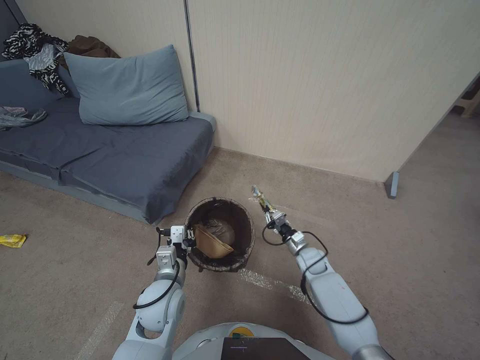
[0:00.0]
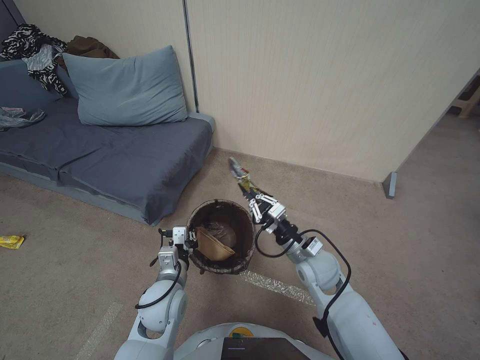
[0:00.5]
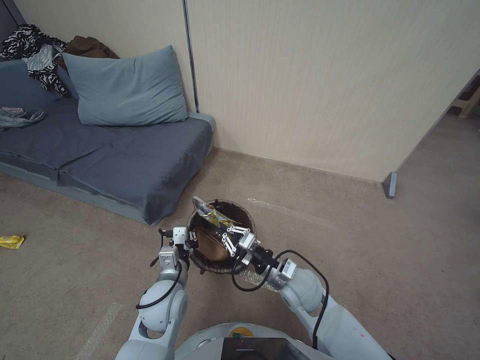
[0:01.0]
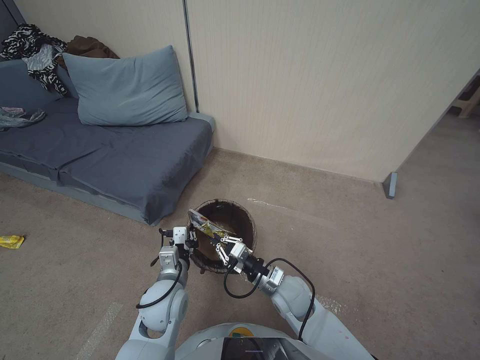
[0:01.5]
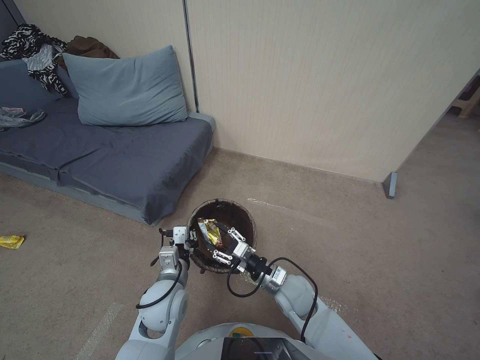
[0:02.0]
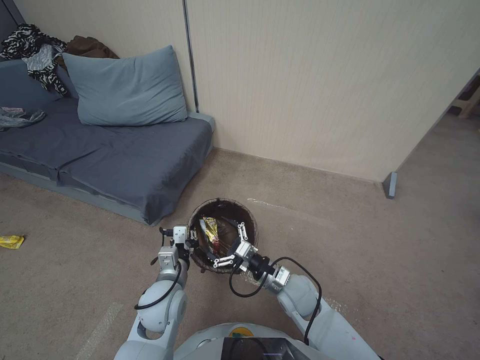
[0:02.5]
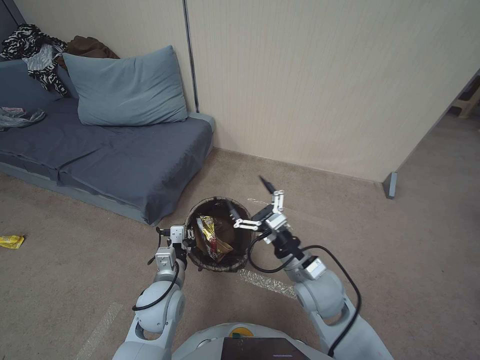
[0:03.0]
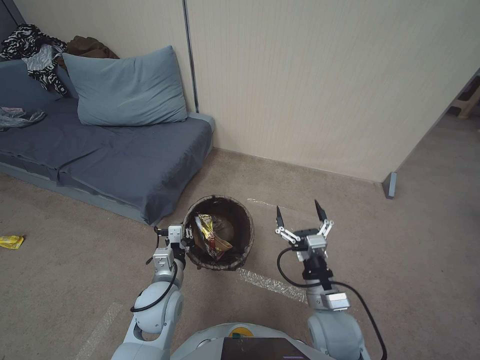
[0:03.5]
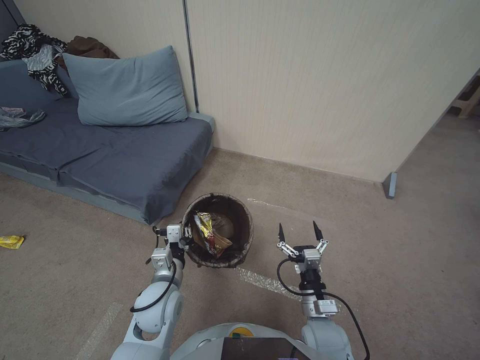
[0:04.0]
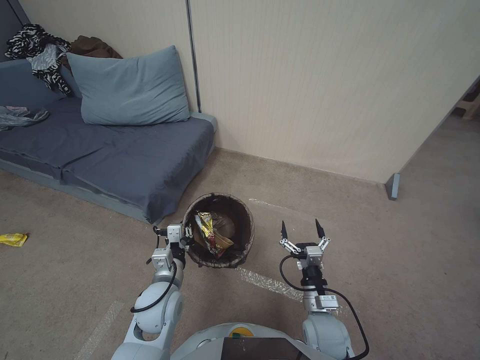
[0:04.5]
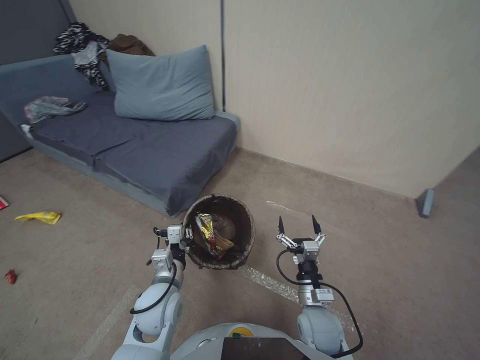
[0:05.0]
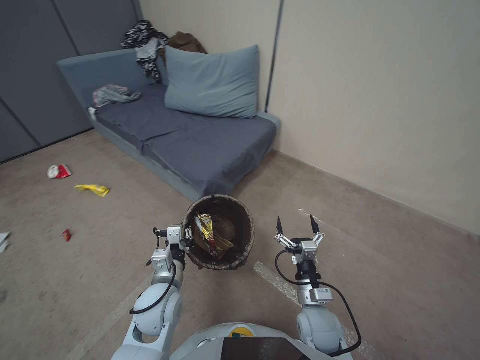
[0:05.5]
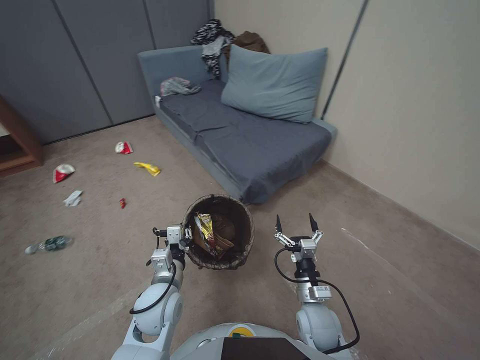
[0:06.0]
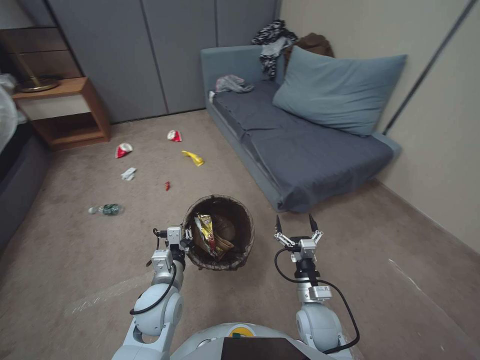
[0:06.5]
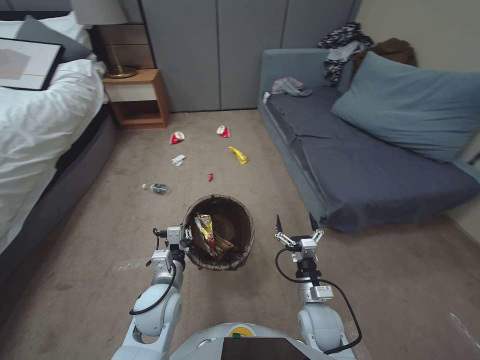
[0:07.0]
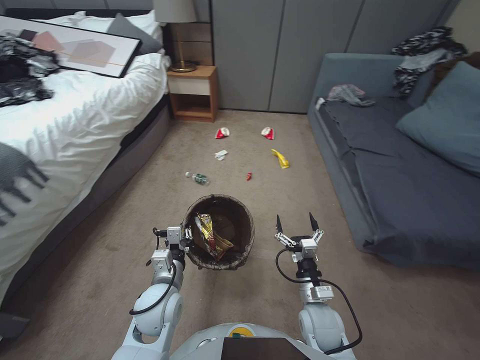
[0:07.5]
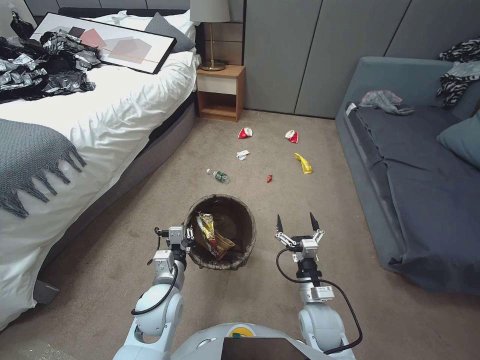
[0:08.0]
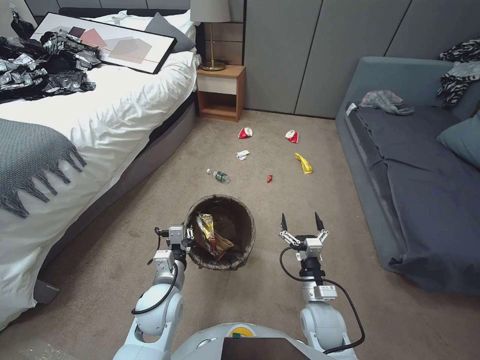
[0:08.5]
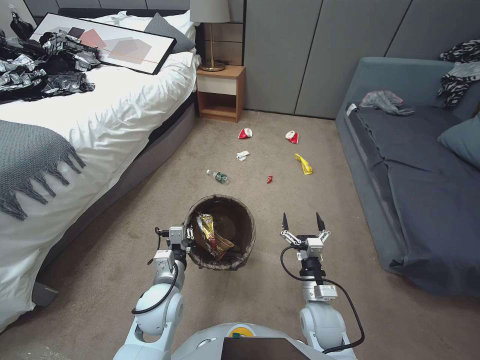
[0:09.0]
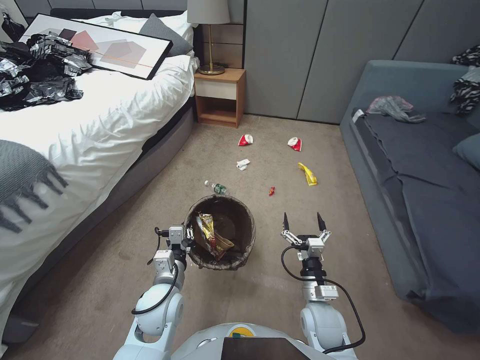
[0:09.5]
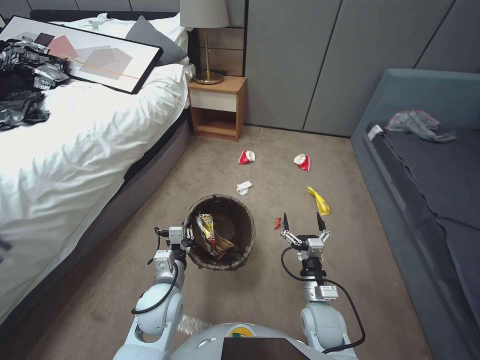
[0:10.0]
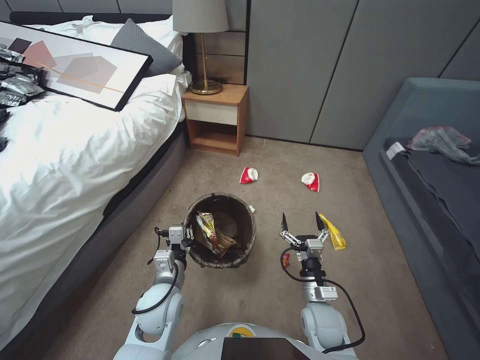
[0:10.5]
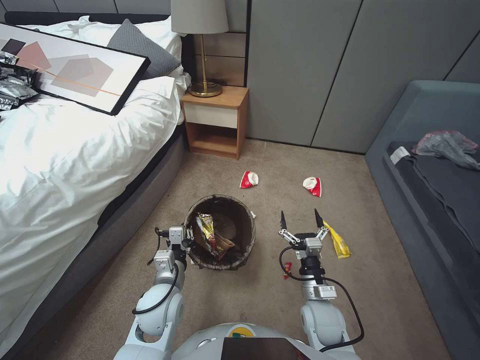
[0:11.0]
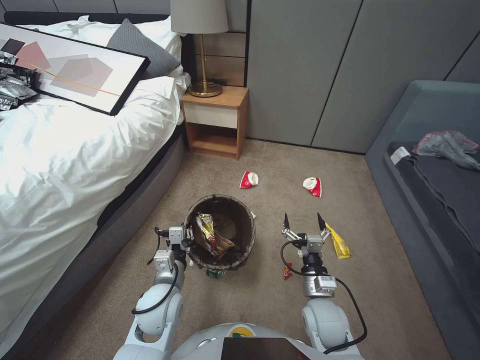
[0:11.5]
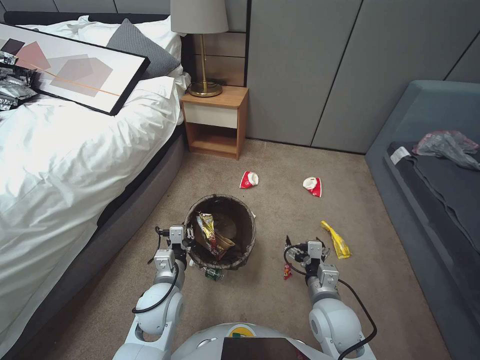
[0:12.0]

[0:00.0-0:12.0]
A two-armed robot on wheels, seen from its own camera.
Task of the whole recording: Pick up the trash bin, then pick up the garbage from the floor and place it into the trash bin.
0:00.0 to 0:02.0: The right gripper shifts roughly 25 cm upward, backward and to the left.
0:02.0 to 0:04.0: The right gripper moves backward and to the right, roughly 10 cm, and opens.
0:10.0 to 0:12.0: The right gripper is displaced upward by approximately 5 cm.

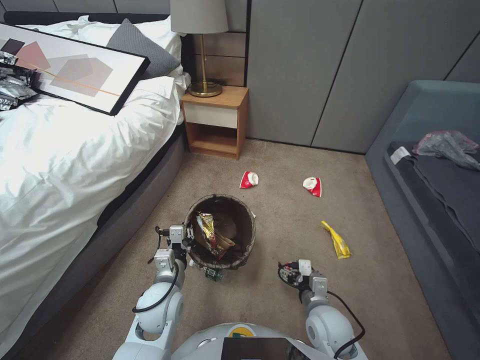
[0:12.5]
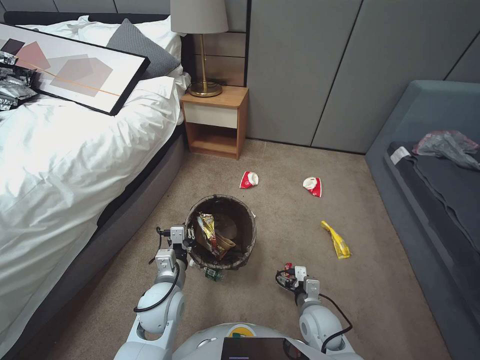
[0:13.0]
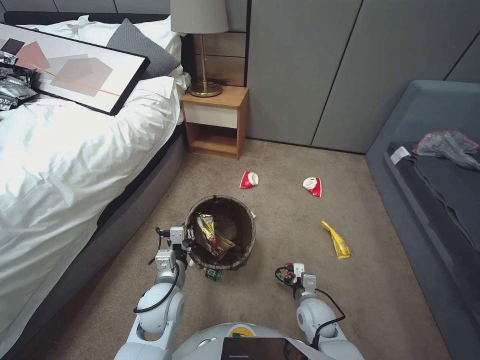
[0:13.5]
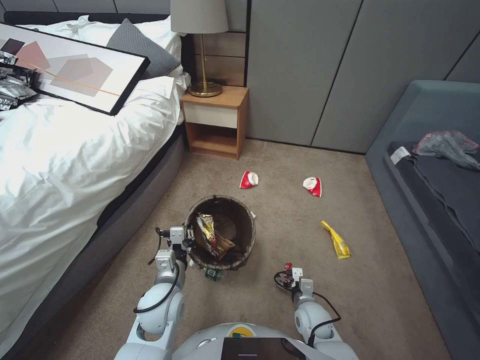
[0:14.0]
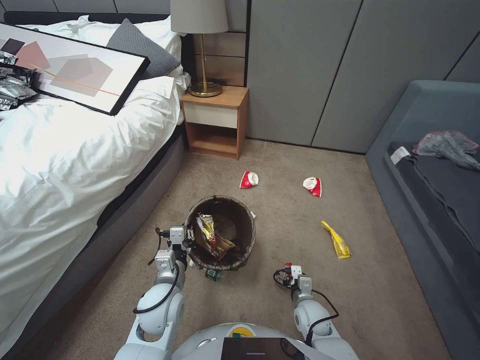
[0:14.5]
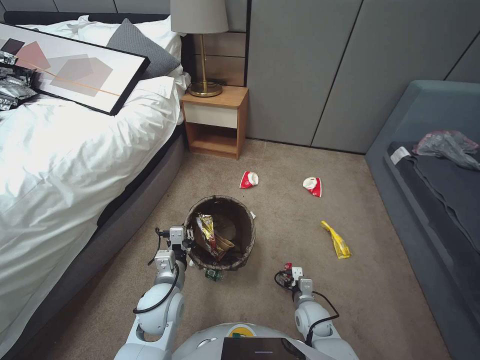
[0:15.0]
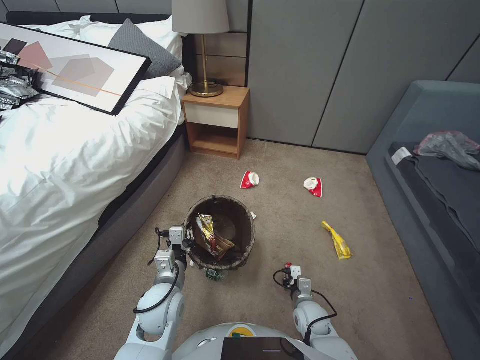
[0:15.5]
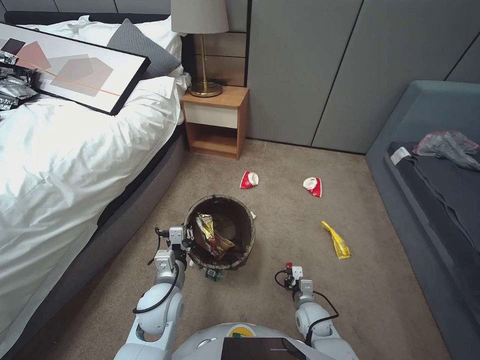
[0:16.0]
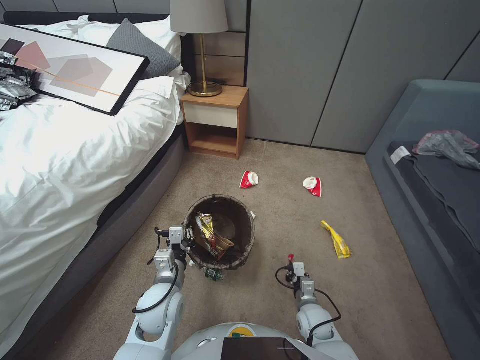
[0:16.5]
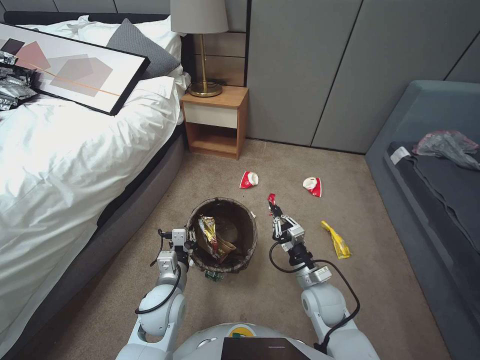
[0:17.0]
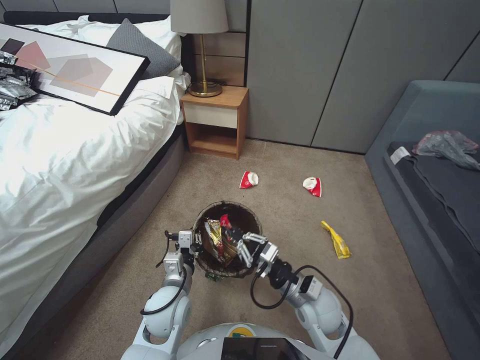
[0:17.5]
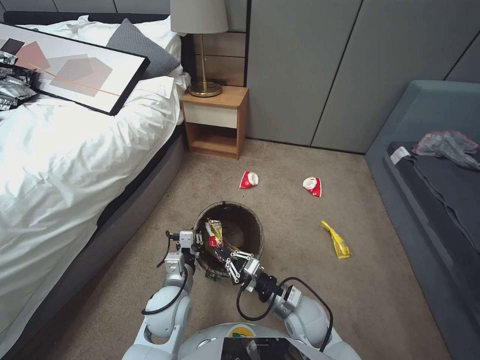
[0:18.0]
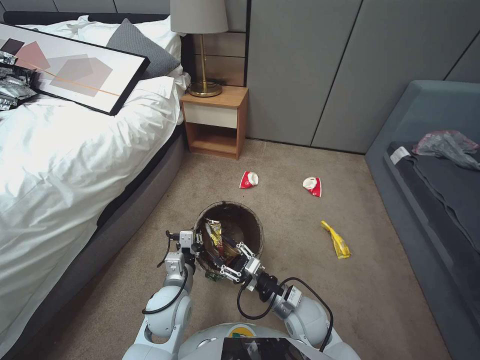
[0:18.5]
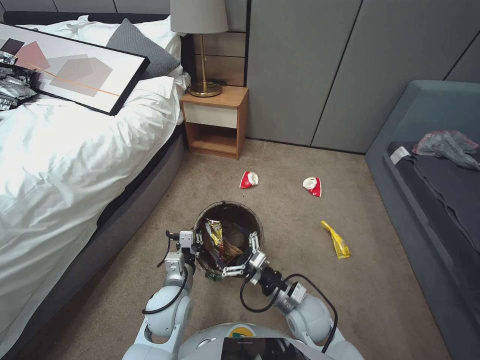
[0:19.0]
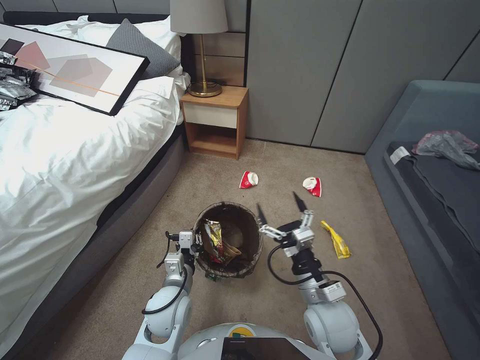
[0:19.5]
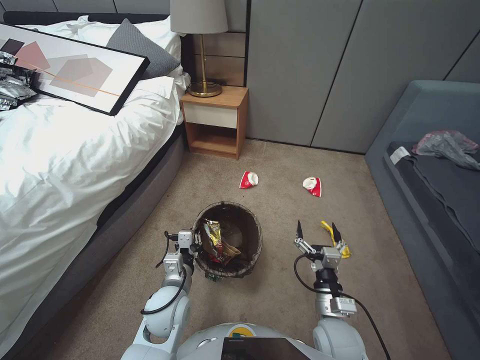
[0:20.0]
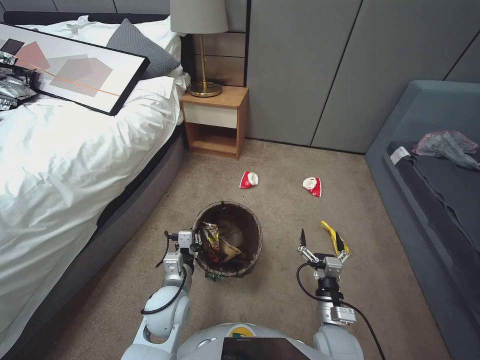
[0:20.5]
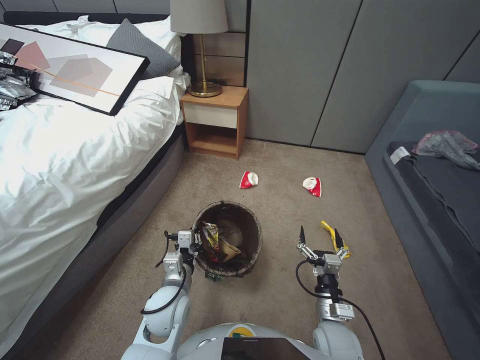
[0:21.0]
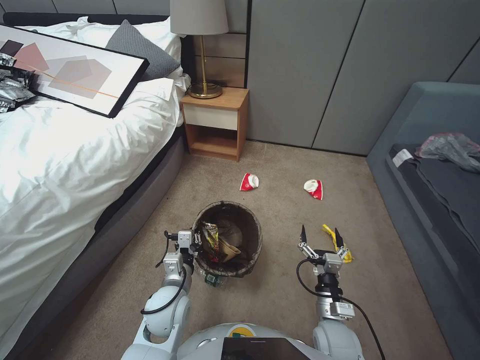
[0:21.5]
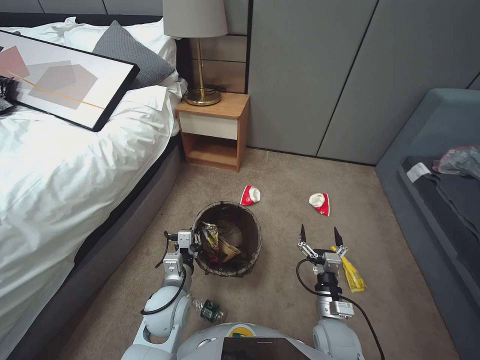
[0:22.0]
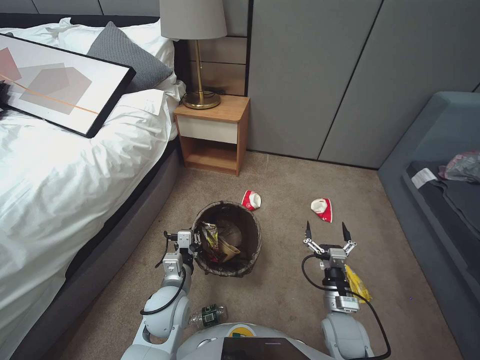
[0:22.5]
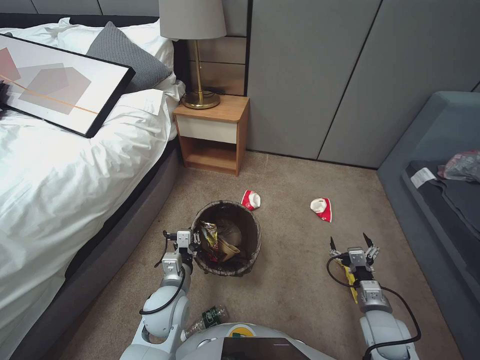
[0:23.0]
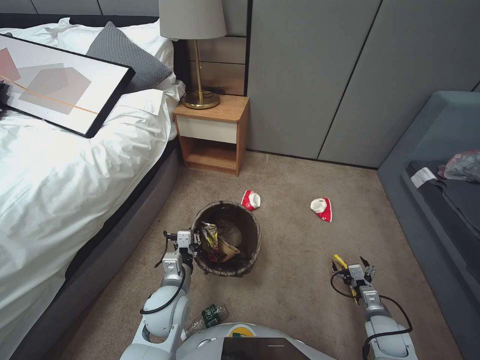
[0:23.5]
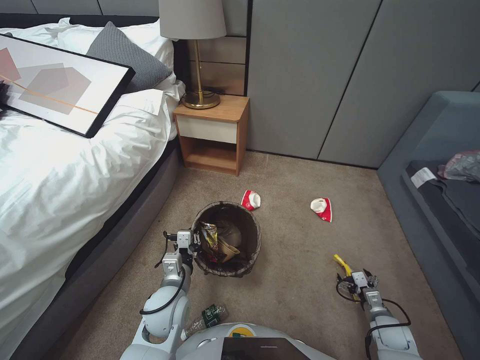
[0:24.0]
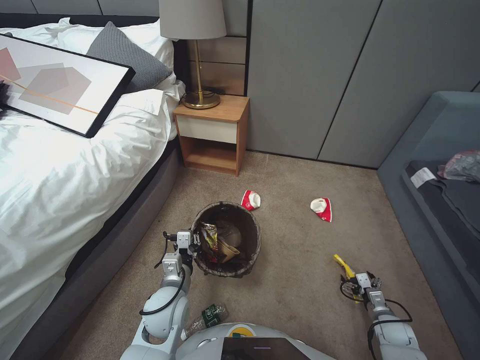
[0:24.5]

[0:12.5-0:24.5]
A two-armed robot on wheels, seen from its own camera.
Task of the whole recording: Pick up the trash bin, then pick up the garbage from the floor and place it into the trash bin.
0:12.5 to 0:14.5: The right gripper heads downward, covering about 10 cm.
0:14.5 to 0:16.5: The right gripper closes up.
0:16.5 to 0:18.5: The right gripper shifts some 15 cm upward and to the left, and opens up.
0:18.5 to 0:20.5: The right gripper goes some 10 cm to the right and backward, reaches about 10 cm upward, then returns, and opens up.
0:22.5 to 0:24.5: The right gripper shifts roughly 25 cm to the right and downward.

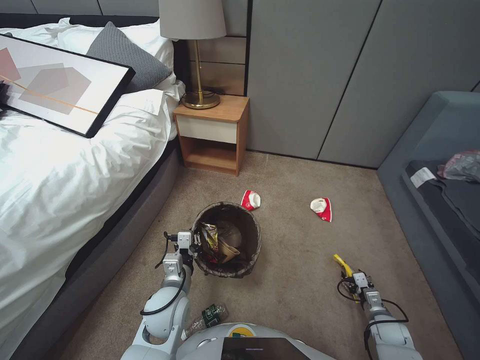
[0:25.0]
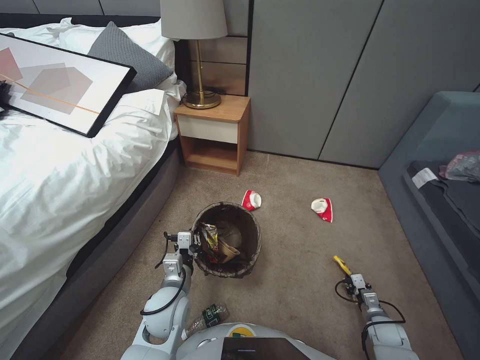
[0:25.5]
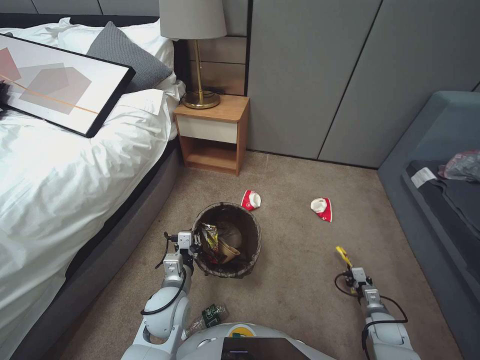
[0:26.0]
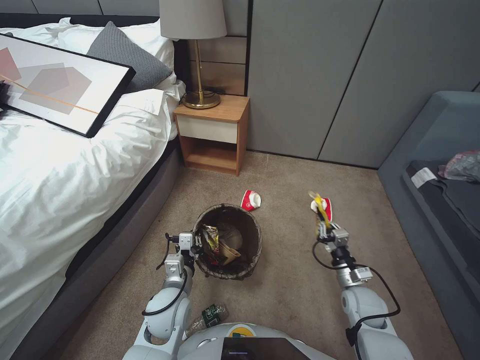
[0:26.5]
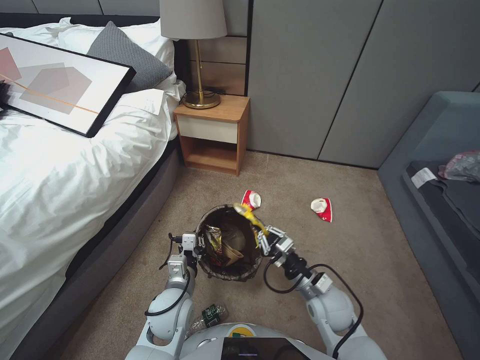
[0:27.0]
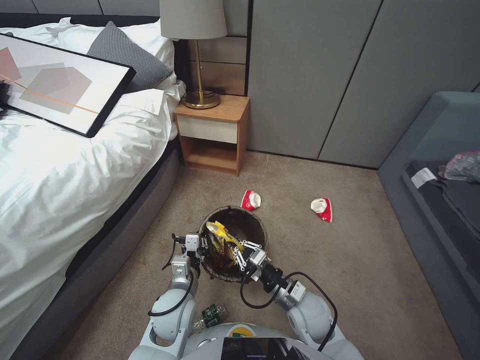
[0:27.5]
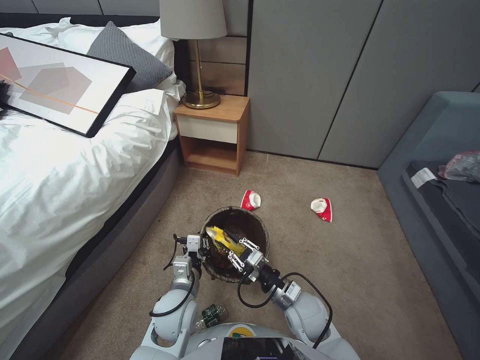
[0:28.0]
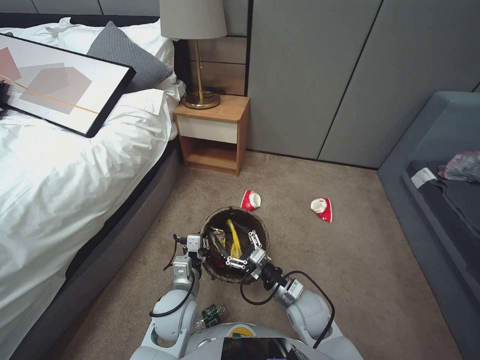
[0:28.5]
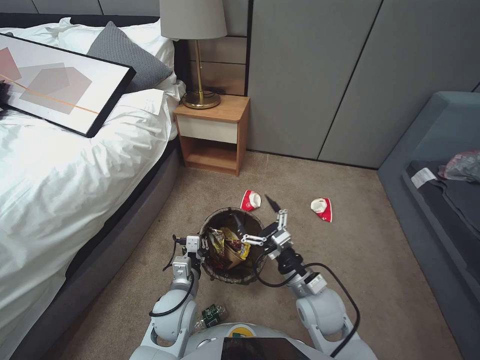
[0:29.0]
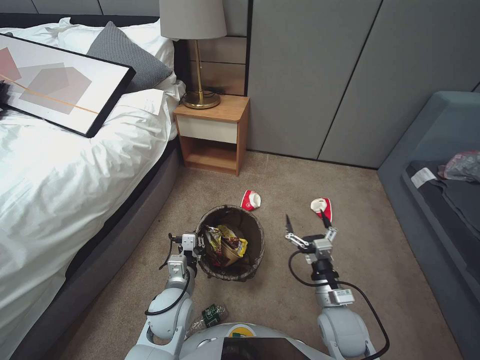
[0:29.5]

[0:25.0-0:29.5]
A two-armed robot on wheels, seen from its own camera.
Task of the whole recording: Pick up the trash bin, then pick up the garbage from the floor and place it into the trash bin.
0:25.0 to 0:27.0: The right gripper heads to the left and upward, covering about 30 cm, and closes up.
0:27.0 to 0:29.5: The right gripper opens its fingers.
